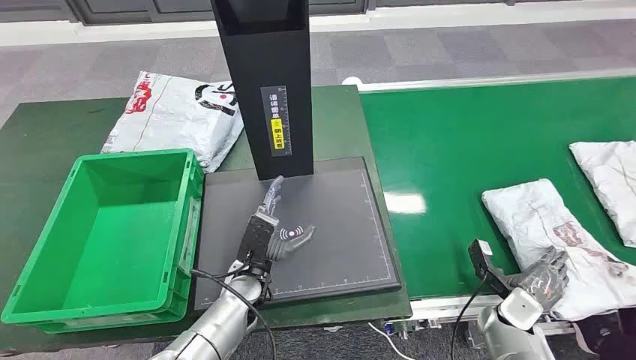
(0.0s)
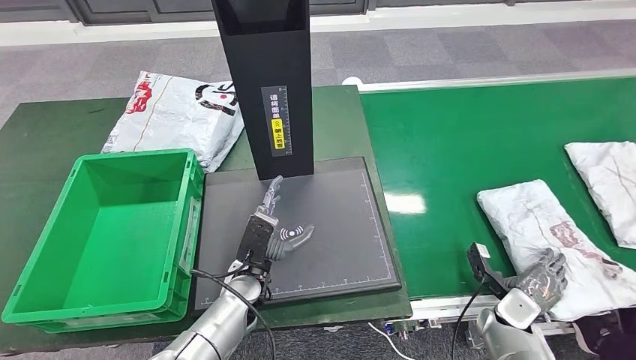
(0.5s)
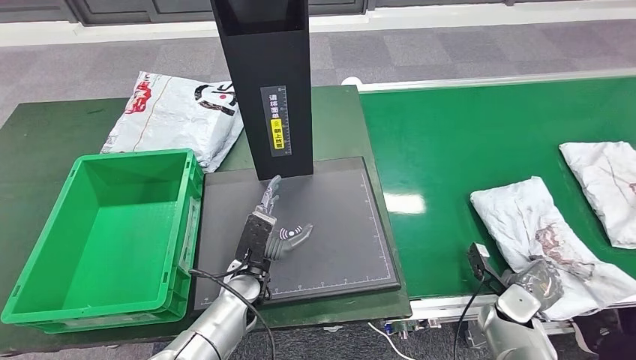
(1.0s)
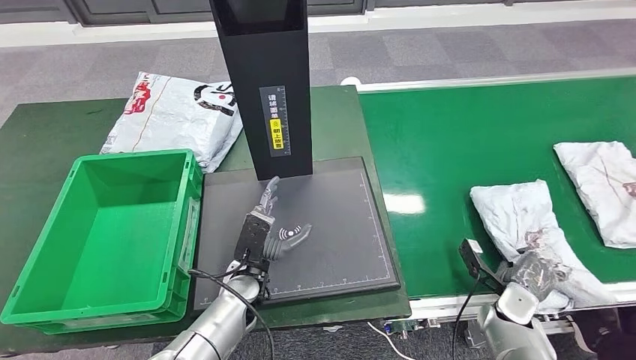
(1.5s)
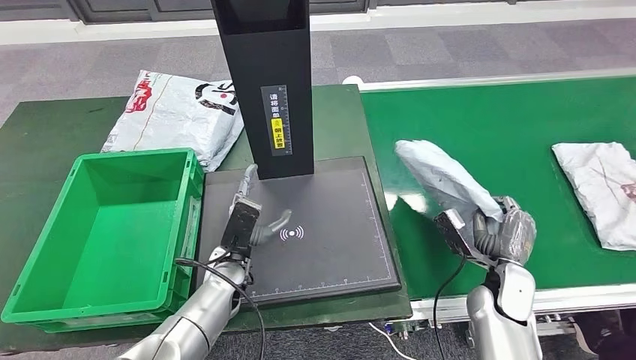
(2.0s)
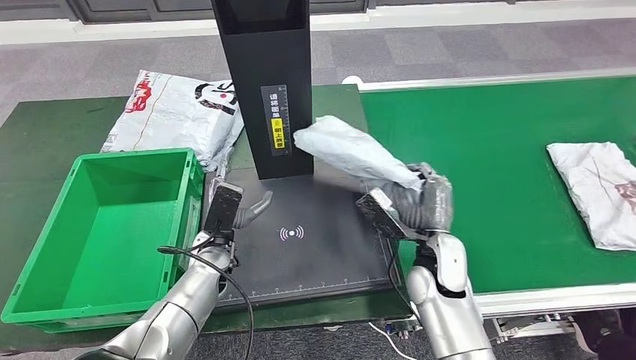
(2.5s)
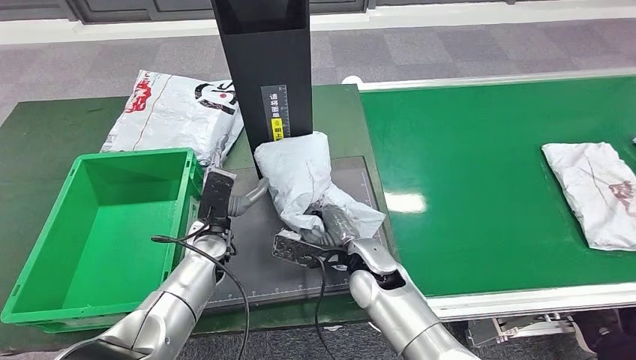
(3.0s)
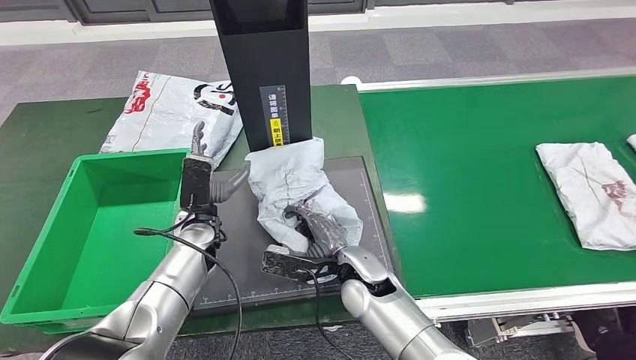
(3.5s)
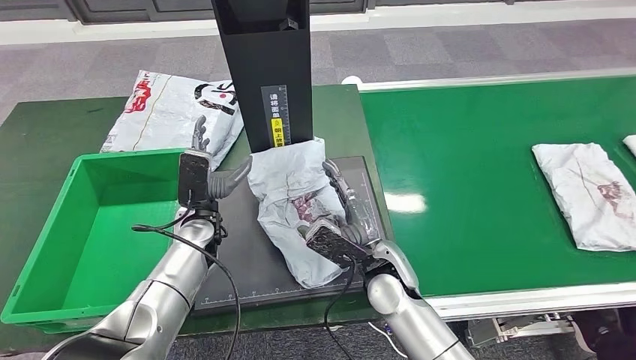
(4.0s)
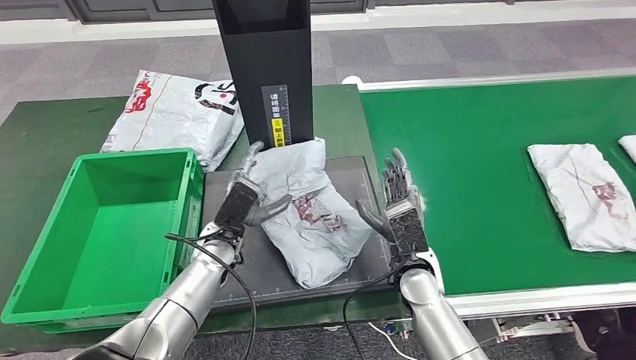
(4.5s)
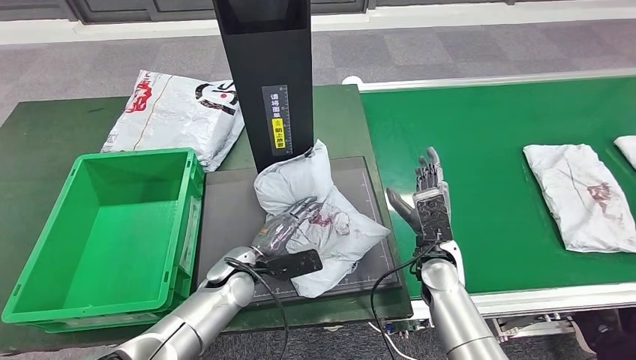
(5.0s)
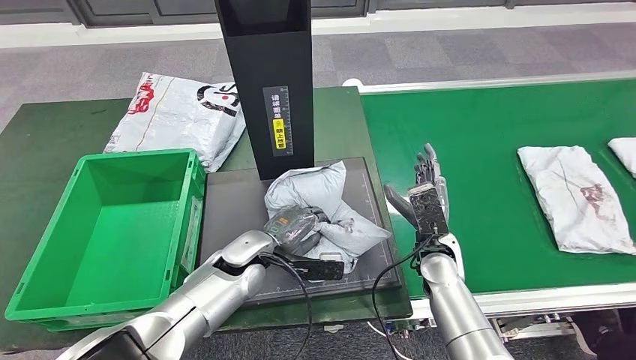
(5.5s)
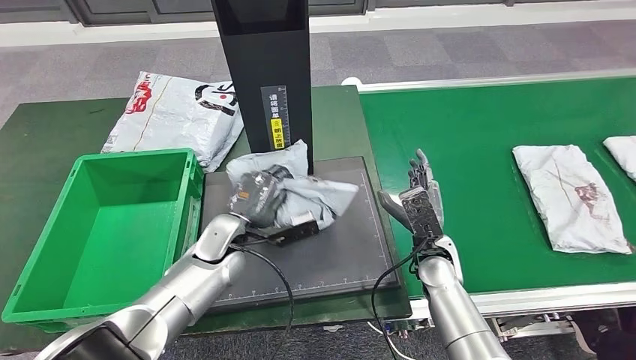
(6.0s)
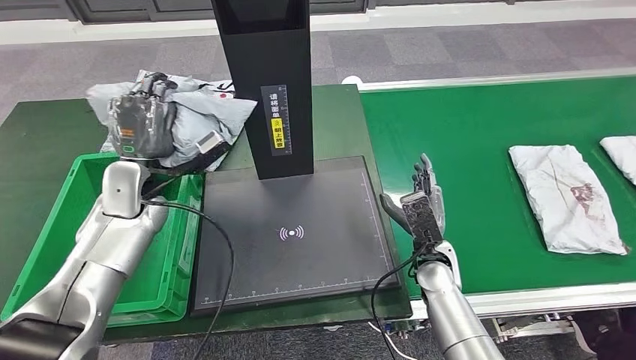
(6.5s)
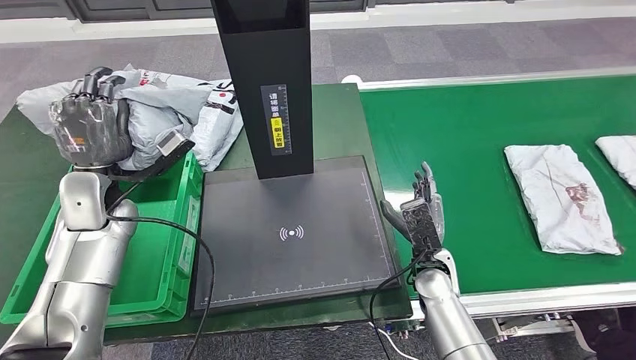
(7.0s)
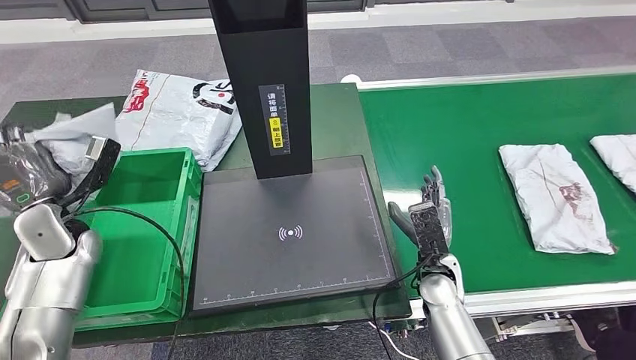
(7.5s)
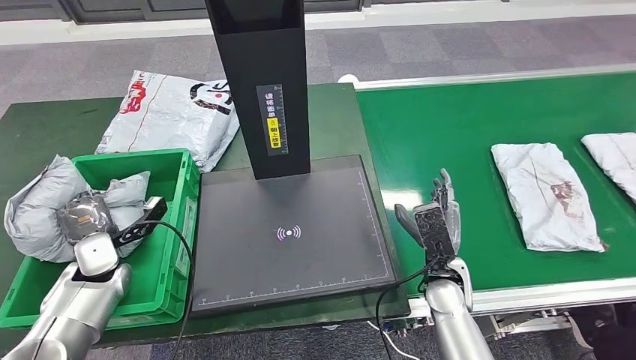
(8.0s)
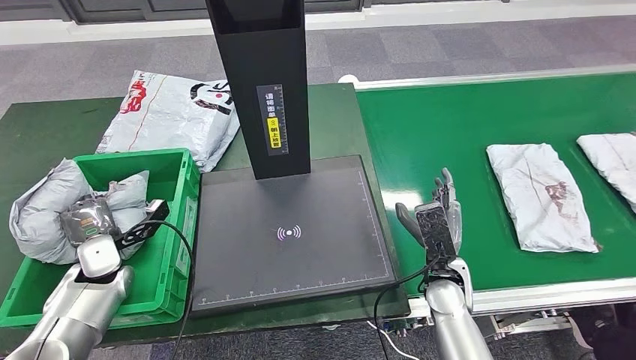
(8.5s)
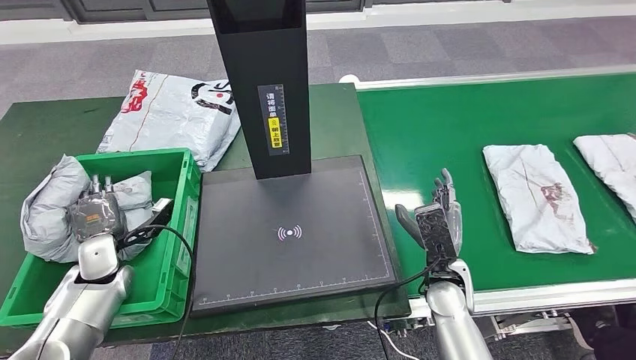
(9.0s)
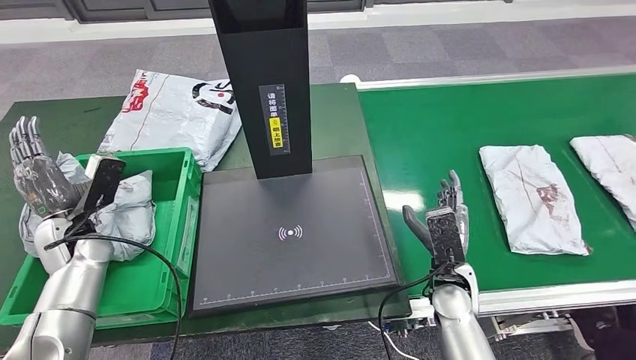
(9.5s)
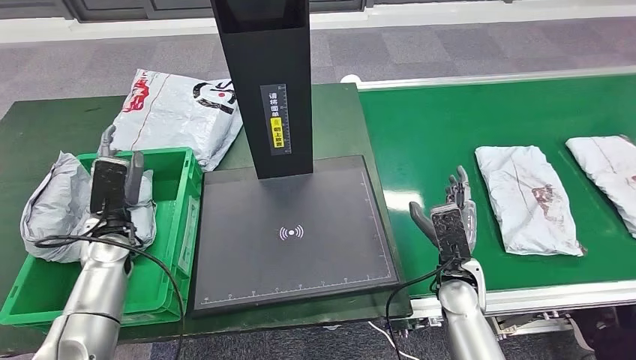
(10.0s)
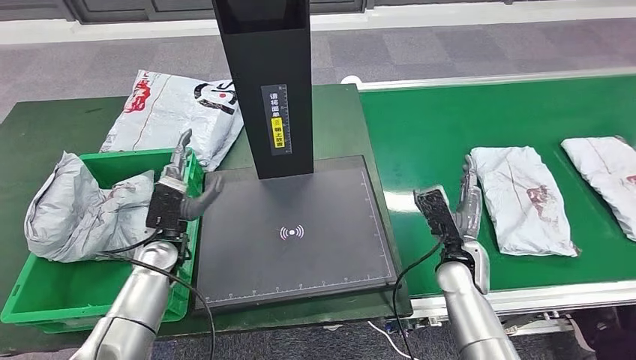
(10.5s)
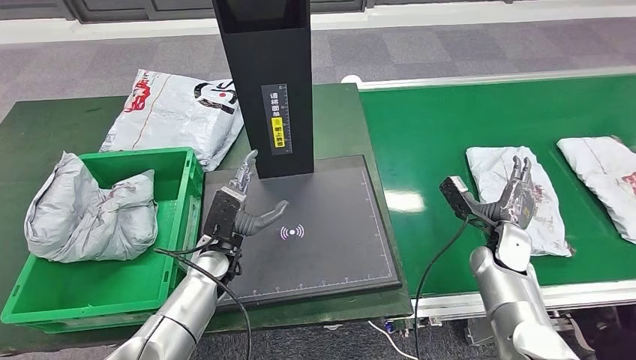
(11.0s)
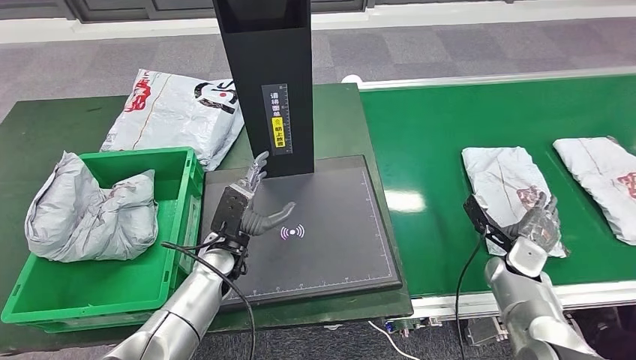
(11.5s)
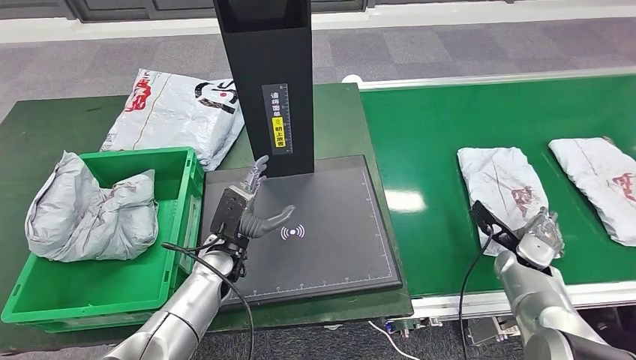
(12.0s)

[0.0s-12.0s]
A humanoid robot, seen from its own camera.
Step, 0.0s to 2.0s: Take the parcel off the conveyor belt.
Step, 2.5s to 4.0s: Place the parcel onto the inbound machine.
Step, 4.5s to 6.5s: Pick up the parcel from the inbound machine.
Step, 7.0s to 9.0s: Put the parcel inside the courier box.

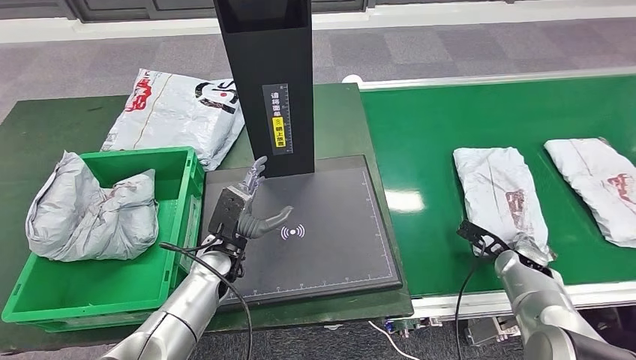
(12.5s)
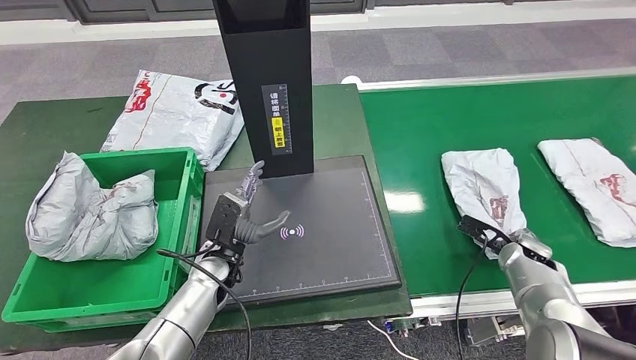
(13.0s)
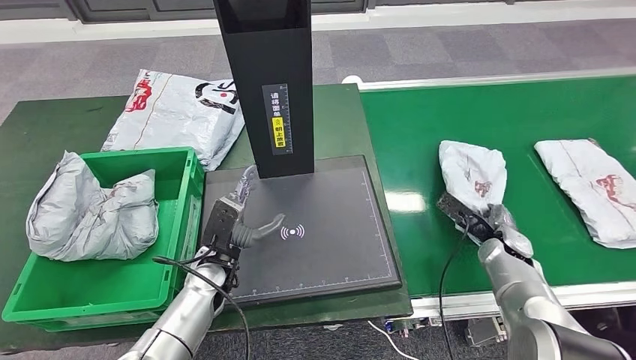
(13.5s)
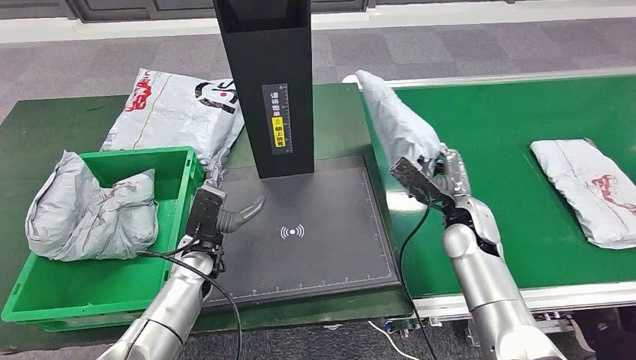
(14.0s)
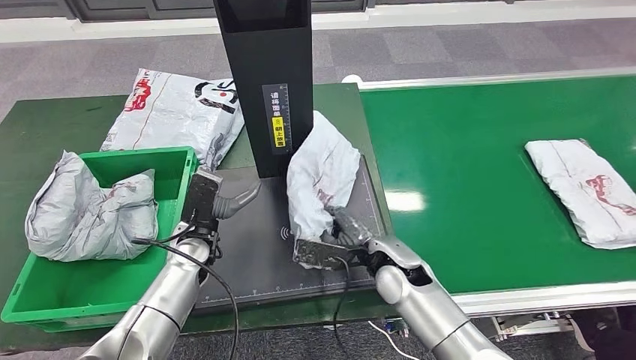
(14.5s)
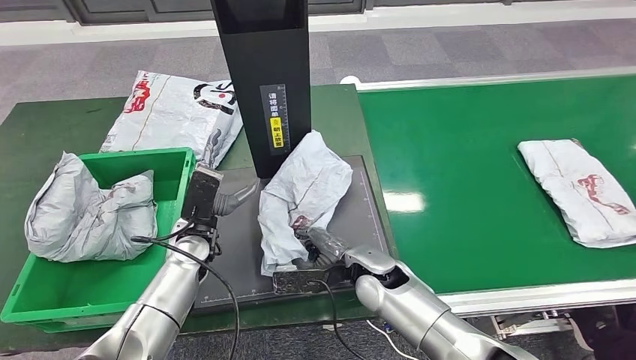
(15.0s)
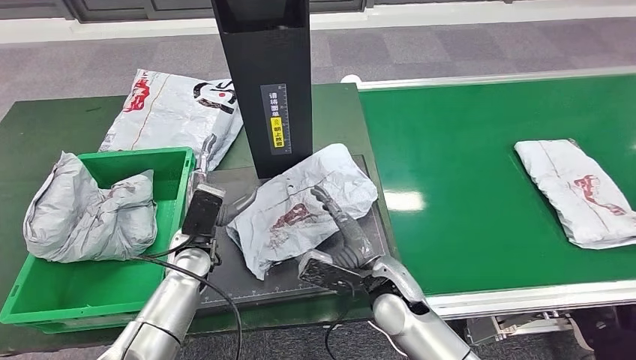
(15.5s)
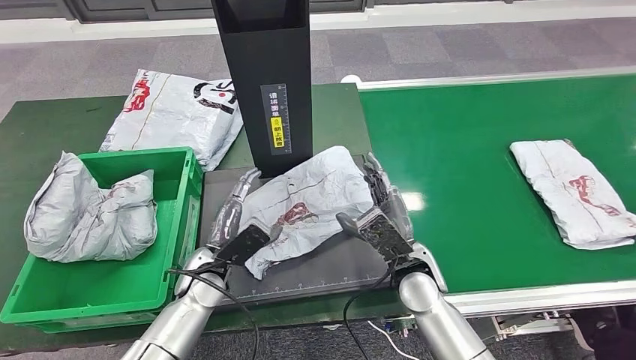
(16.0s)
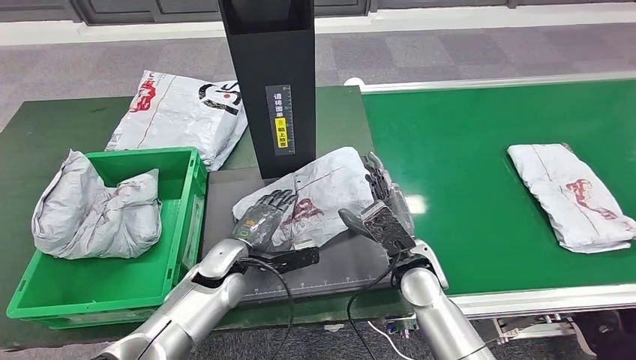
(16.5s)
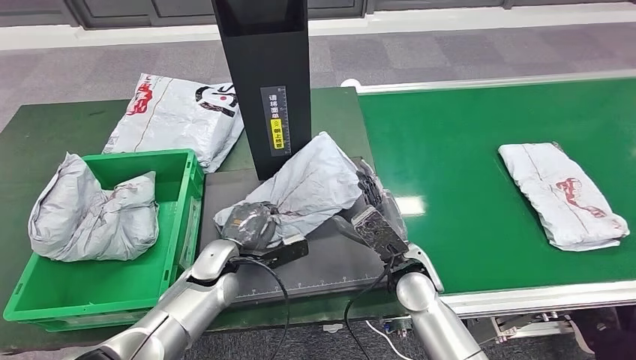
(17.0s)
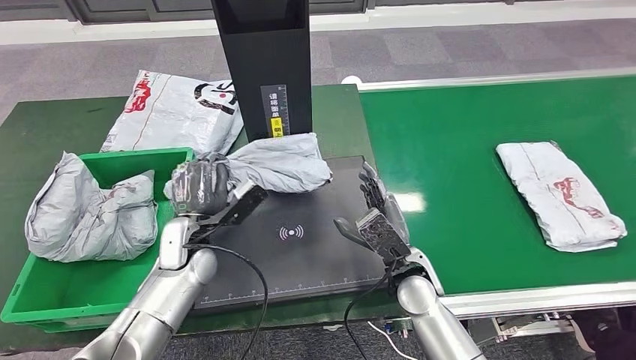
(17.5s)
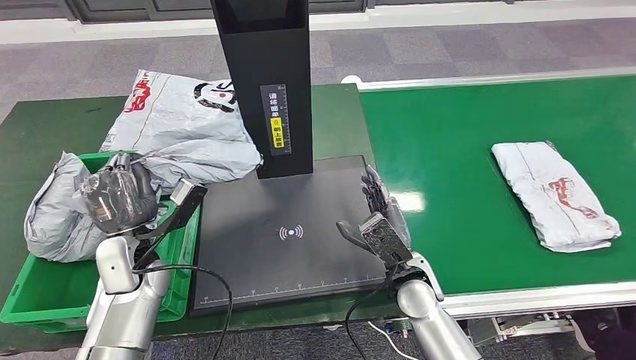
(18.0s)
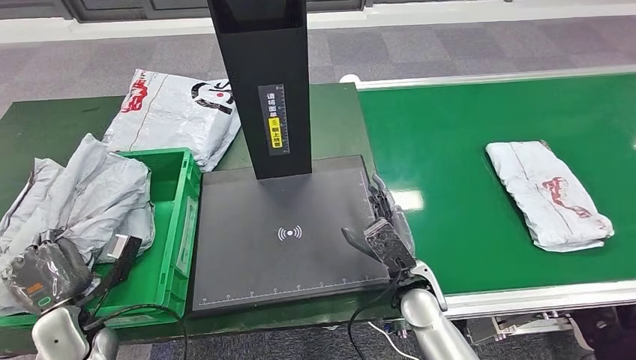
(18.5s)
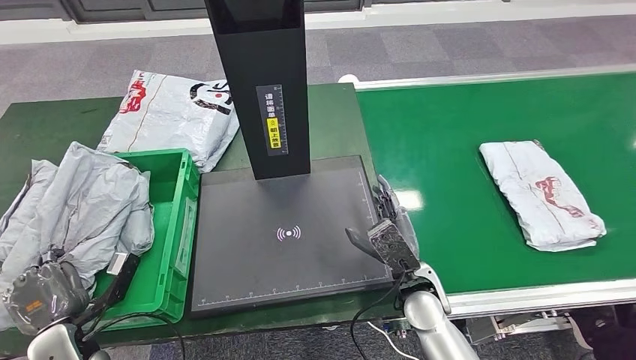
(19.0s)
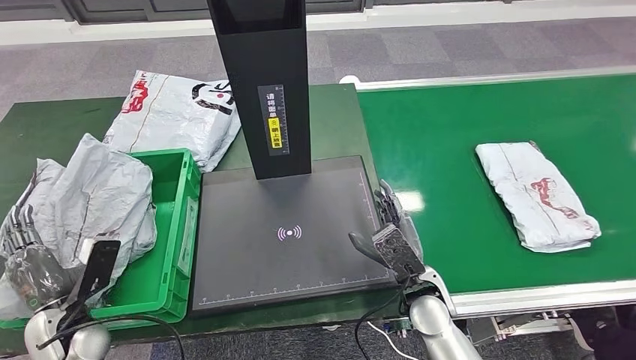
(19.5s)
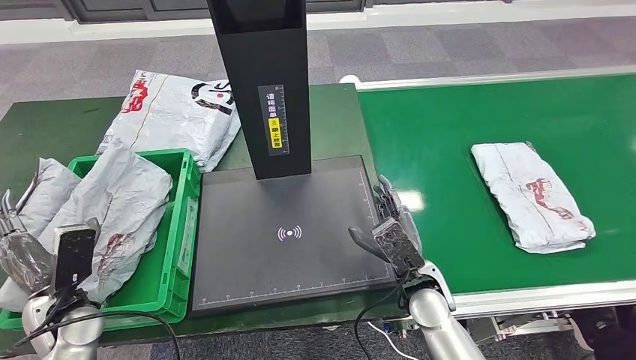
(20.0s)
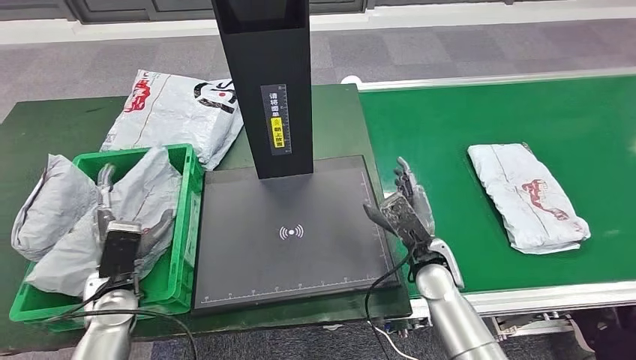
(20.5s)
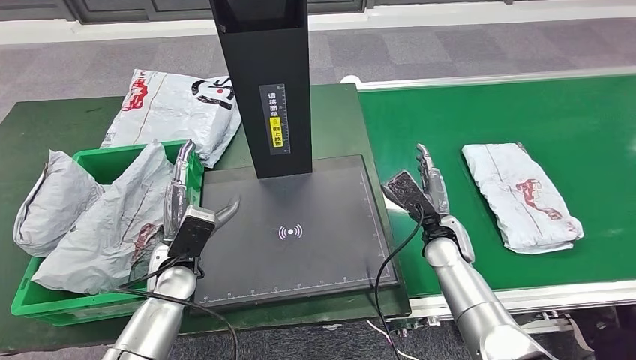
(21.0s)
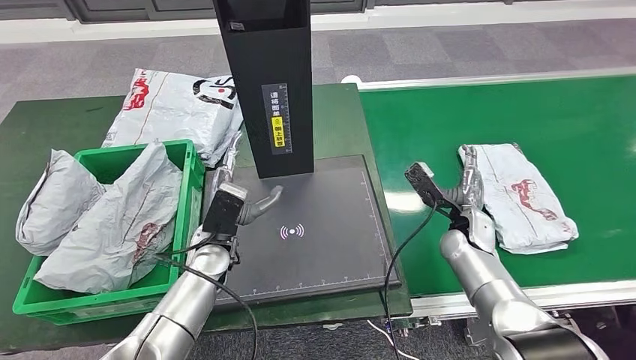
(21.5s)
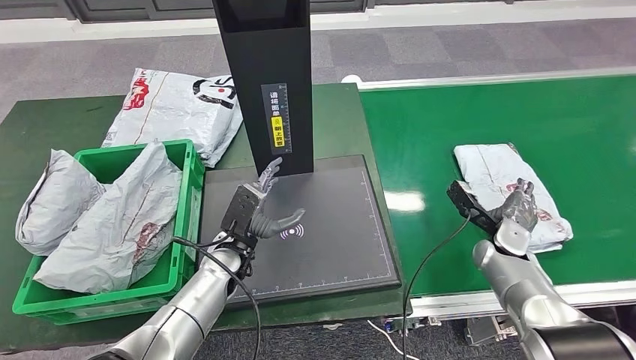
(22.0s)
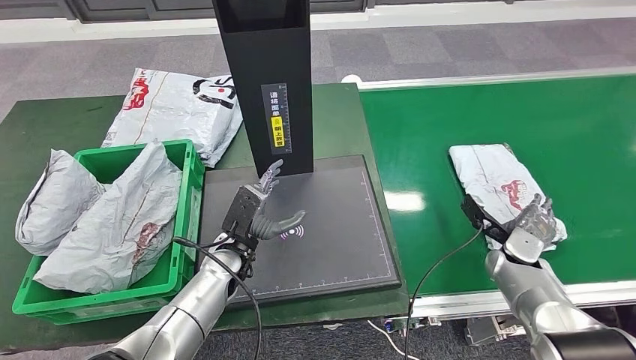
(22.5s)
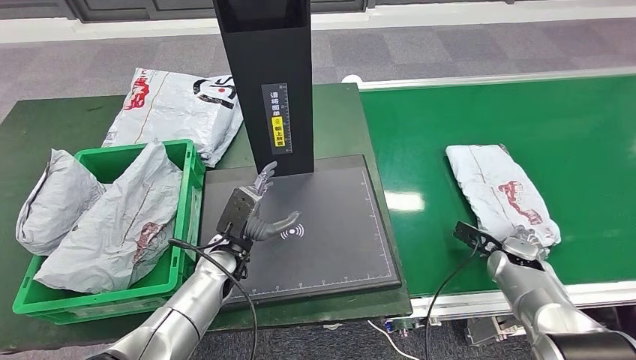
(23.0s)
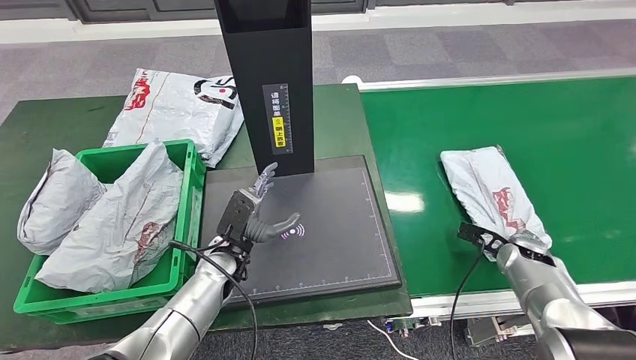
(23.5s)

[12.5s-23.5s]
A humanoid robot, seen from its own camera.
Step, 14.0s to 16.0s: Place the parcel onto the inbound machine.
Step, 16.5s to 18.0s: Pick up the parcel from the inbound machine.
Step, 18.5s to 20.5s: Place the parcel into the delivery box.
14.5s to 16.0s: The left hand changes place by roughly 5 cm.
21.5s to 23.5s: The right hand moves to the right, approximately 10 cm.
